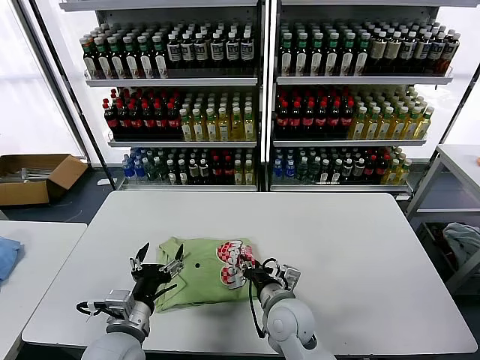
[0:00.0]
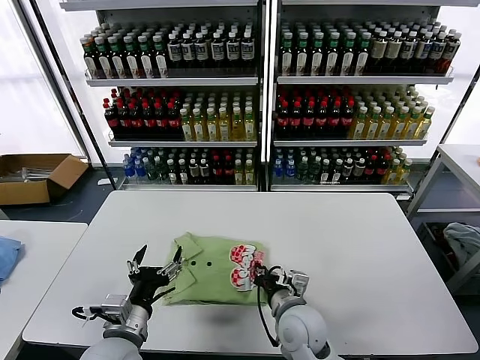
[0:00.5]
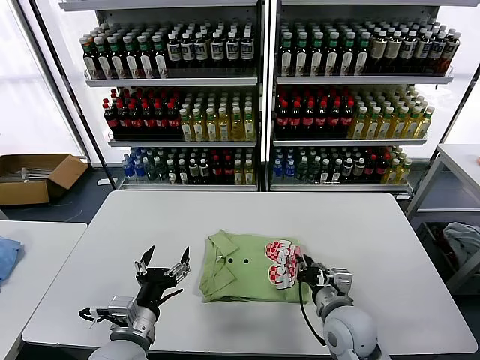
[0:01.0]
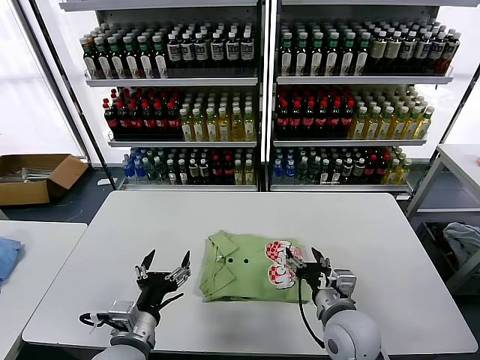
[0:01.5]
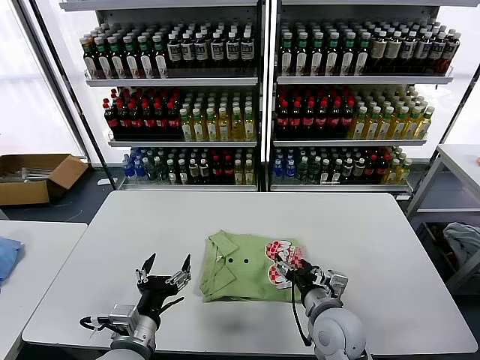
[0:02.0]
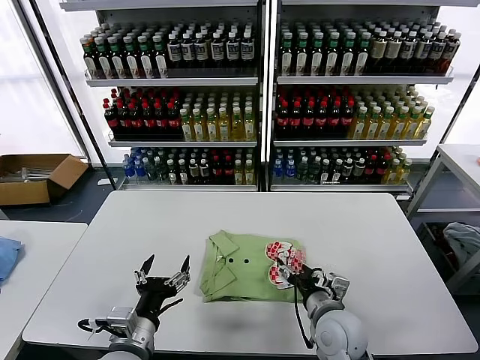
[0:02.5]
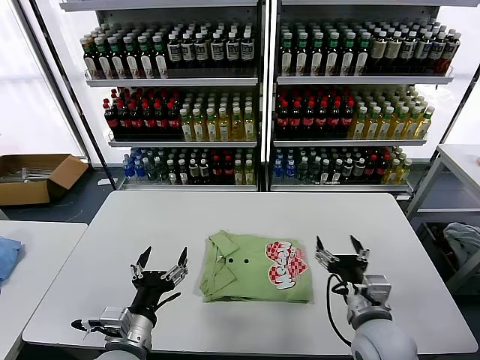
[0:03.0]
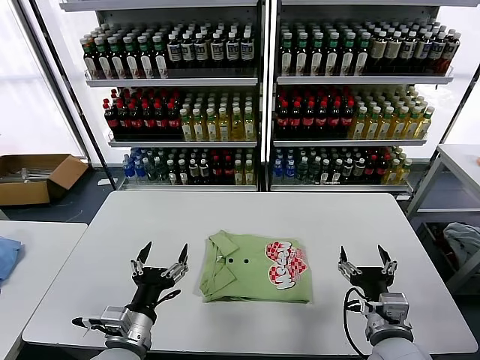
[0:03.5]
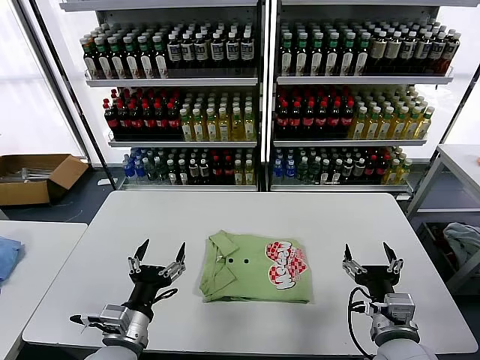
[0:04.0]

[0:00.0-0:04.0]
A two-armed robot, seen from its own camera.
Task of the whole recording: fold and organize the clothes.
Step, 0:00.0 to 0:02.5: Drag the clothes to the center of the table.
0:00.0 to 0:02.0: The right gripper goes approximately 10 cm to the right, and opens its fingers.
0:02.0 to 0:04.0: The right gripper goes approximately 10 cm to the right and backward.

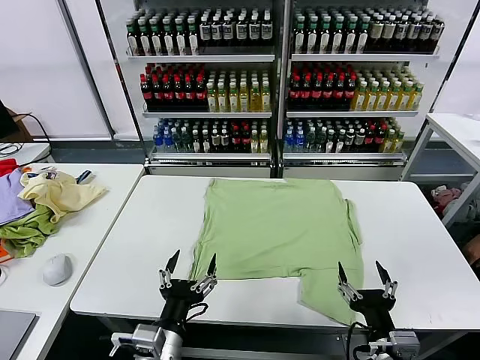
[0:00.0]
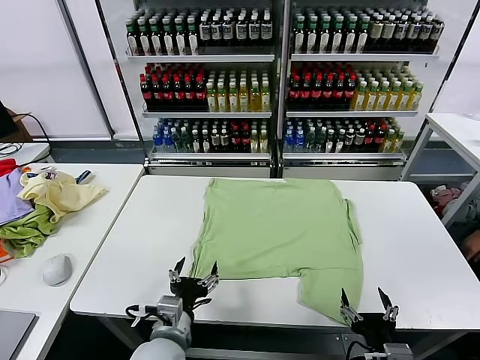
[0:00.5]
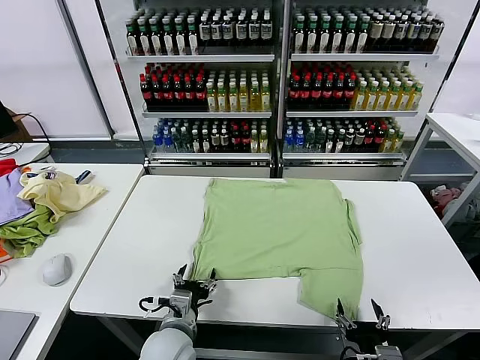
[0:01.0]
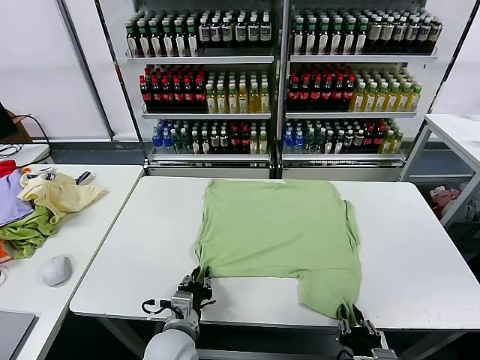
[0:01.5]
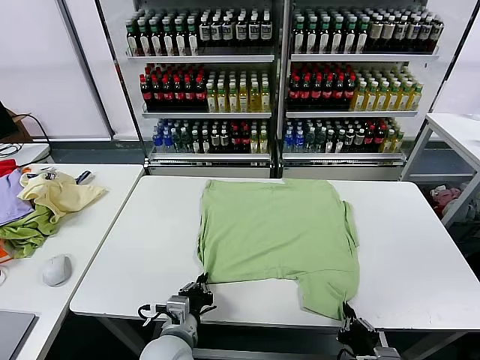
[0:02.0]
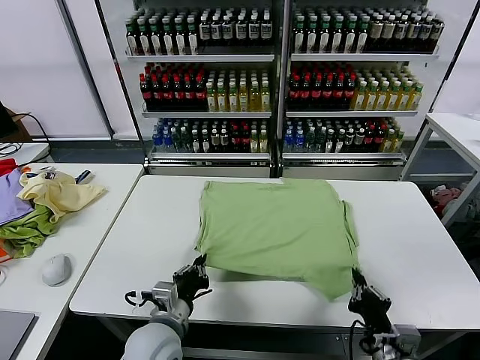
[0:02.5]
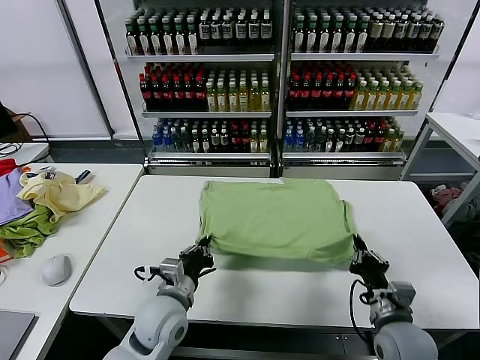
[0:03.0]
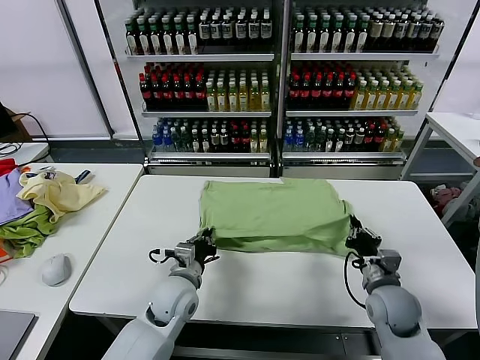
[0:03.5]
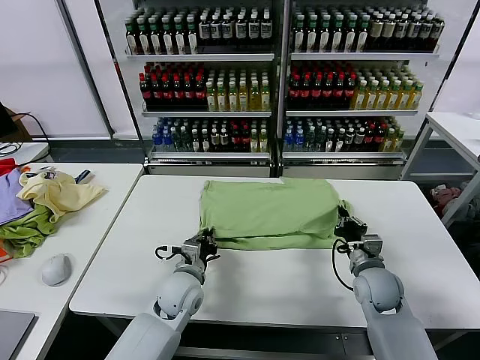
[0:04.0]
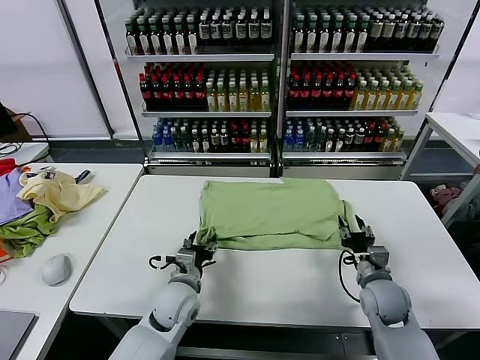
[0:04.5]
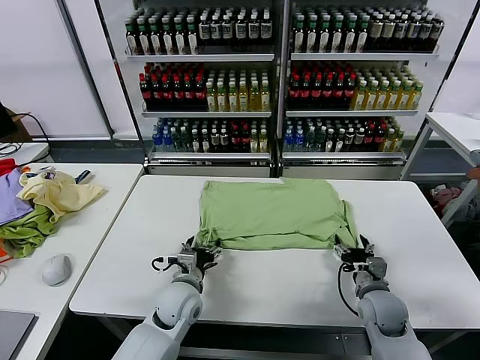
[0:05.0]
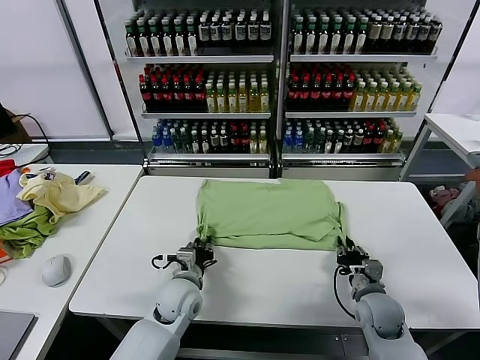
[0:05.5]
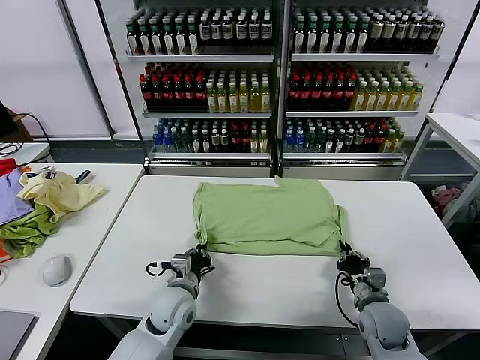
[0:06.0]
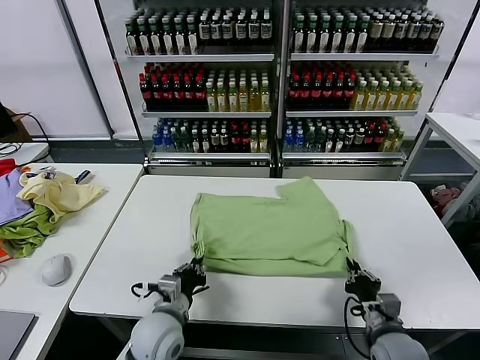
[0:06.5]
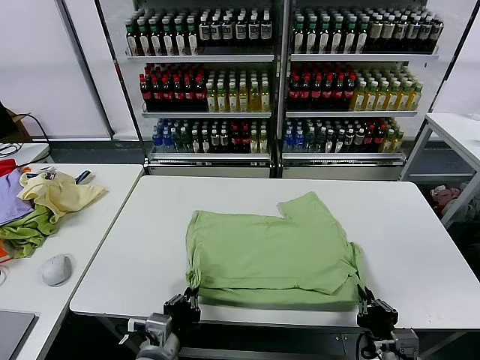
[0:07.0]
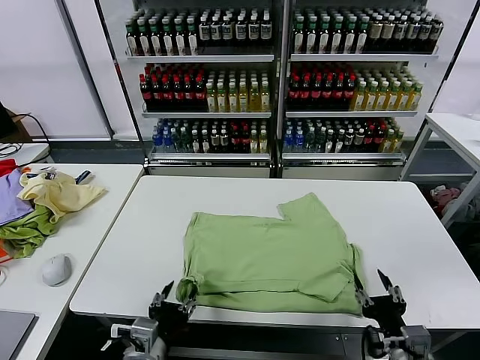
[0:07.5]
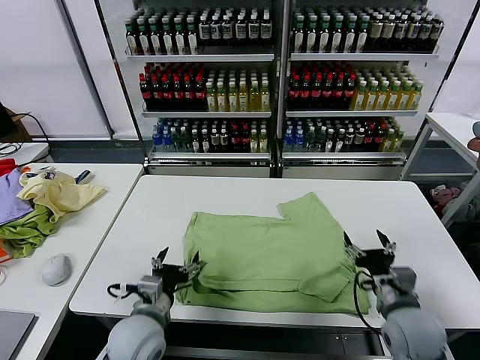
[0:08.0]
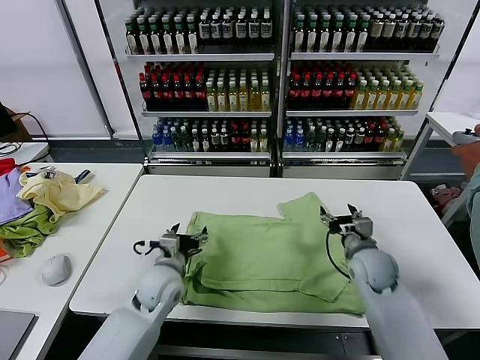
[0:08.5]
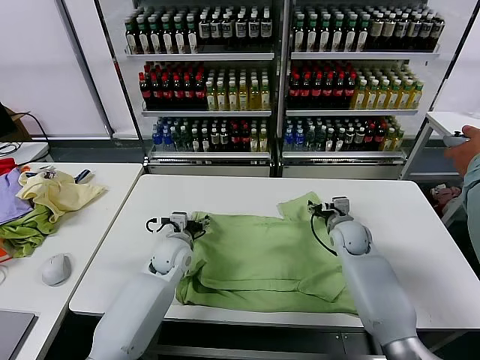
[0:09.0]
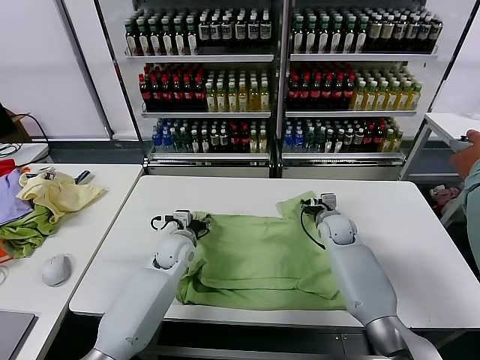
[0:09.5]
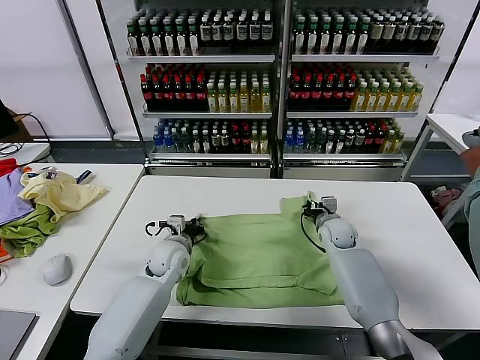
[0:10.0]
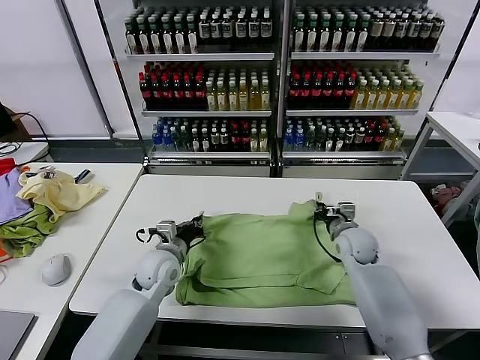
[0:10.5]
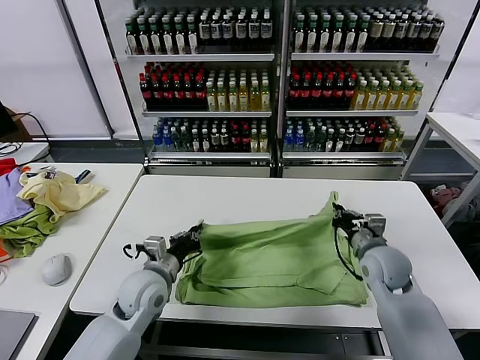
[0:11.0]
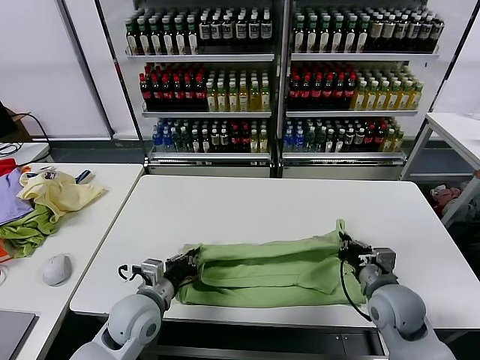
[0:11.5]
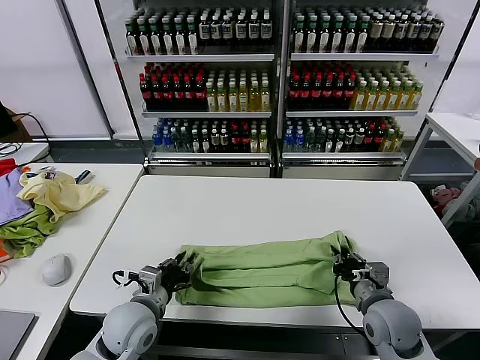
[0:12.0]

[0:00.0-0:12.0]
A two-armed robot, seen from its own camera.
Task of the whole recording: fold and organize the clothes.
Step, 0:00.0 to 0:01.5: use both grippers simultaneously to clamp the lower edge of the clothing fabric.
Step, 0:02.0 to 0:04.0: use both grippers to drag the lower edge of the fabric forward and fold it over the upper edge.
Step, 0:04.5 to 0:07.0: Drag the clothes downward with both gripper.
Step, 0:07.5 to 0:10.0: use both grippers simultaneously to clamp the upper edge of the clothing fabric.
0:02.0 to 0:04.0: The left gripper moves forward, some 15 cm, while the right gripper is displaced forward by approximately 25 cm.
0:04.0 to 0:06.0: The left gripper opens and closes again; the right gripper moves backward, about 5 cm, and opens and closes again.
0:06.0 to 0:08.0: The left gripper heads backward and upward, covering some 10 cm, and opens up, while the right gripper heads upward, covering some 10 cm, reaches about 15 cm backward, then returns, and opens up.
0:08.0 to 0:10.0: The two grippers go roughly 25 cm forward. The left gripper closes, while the right gripper closes its fingers.
0:10.0 to 0:12.0: The two grippers go some 20 cm backward.

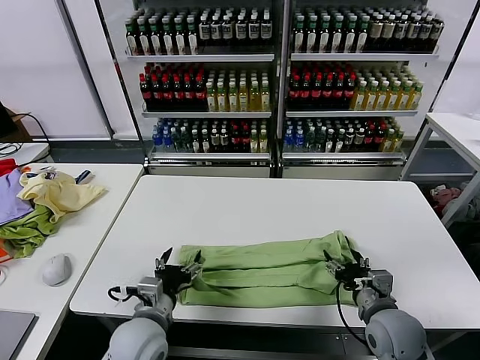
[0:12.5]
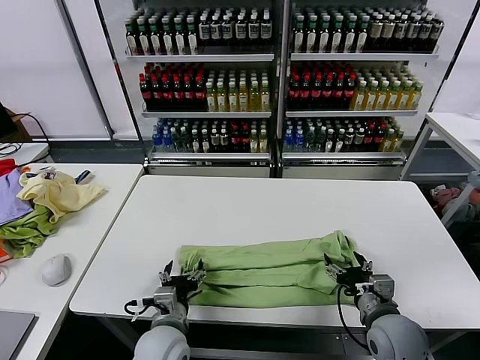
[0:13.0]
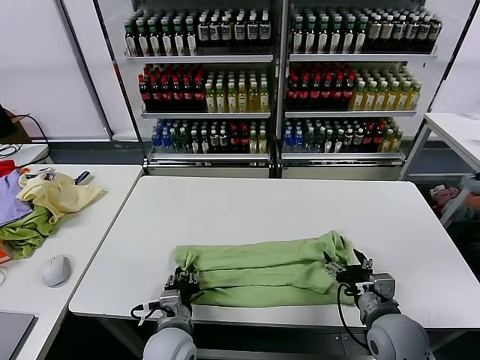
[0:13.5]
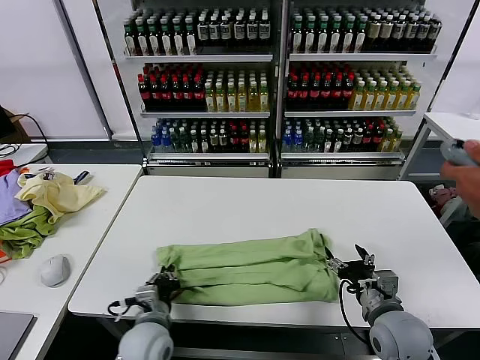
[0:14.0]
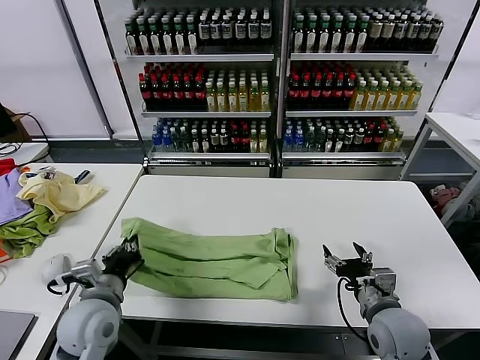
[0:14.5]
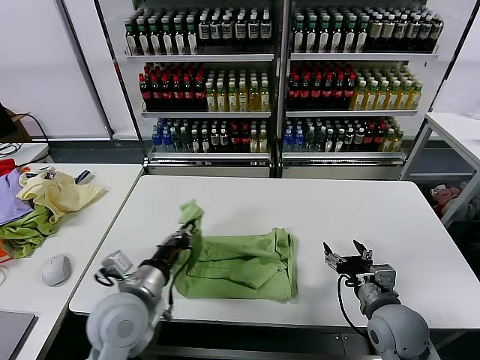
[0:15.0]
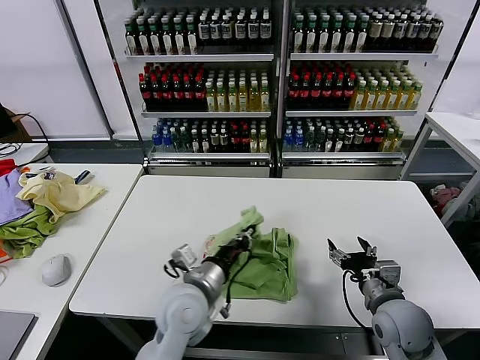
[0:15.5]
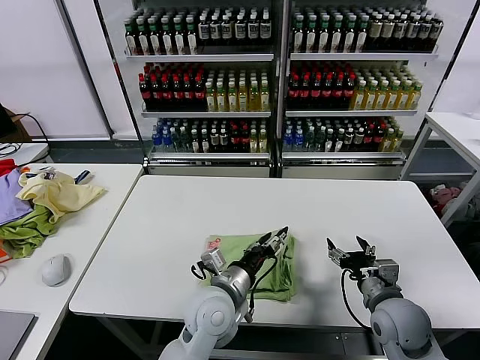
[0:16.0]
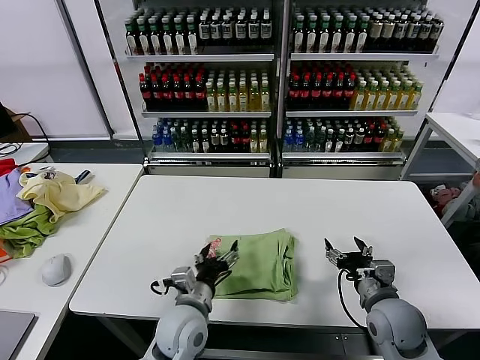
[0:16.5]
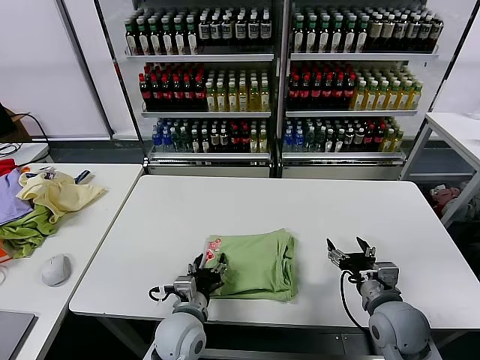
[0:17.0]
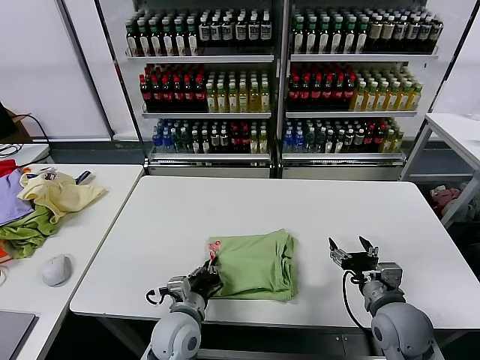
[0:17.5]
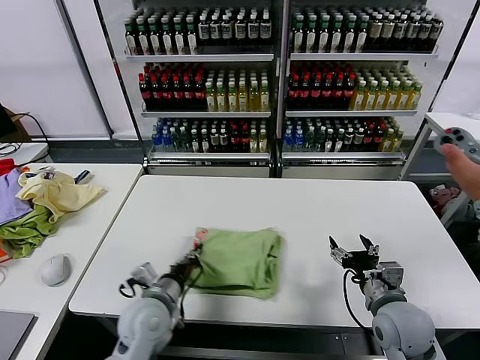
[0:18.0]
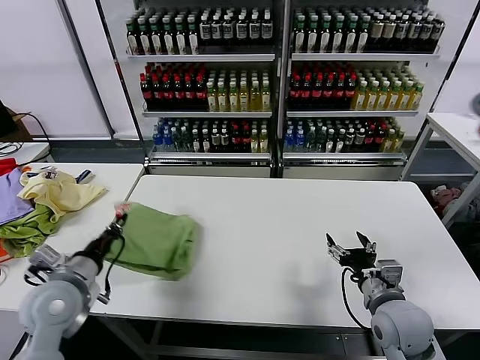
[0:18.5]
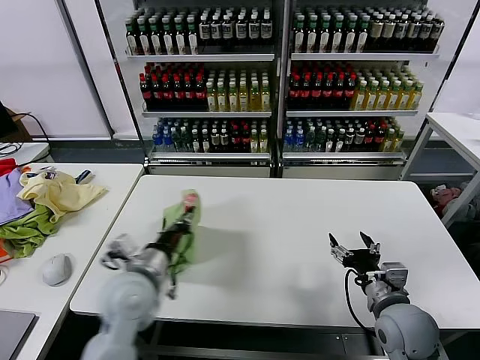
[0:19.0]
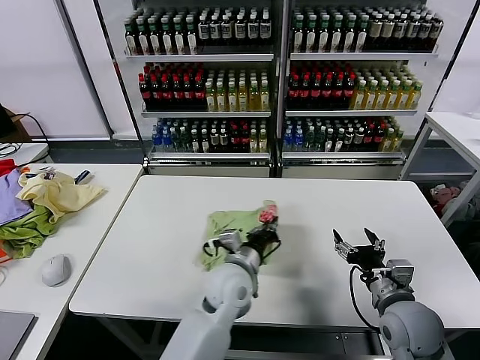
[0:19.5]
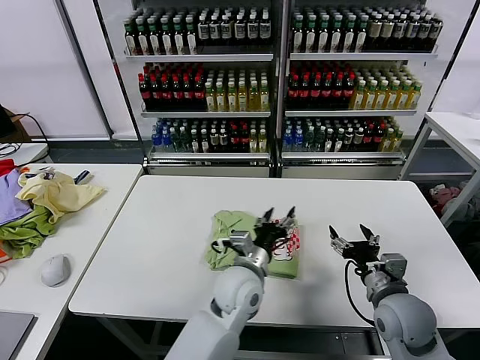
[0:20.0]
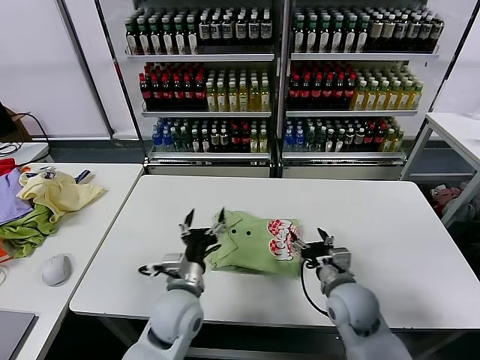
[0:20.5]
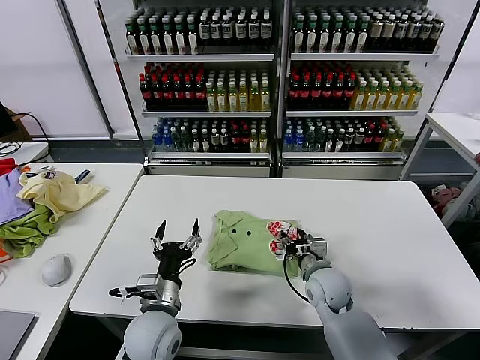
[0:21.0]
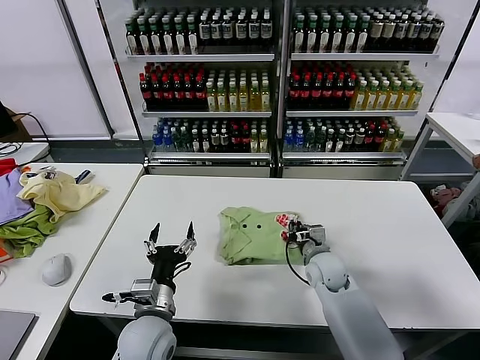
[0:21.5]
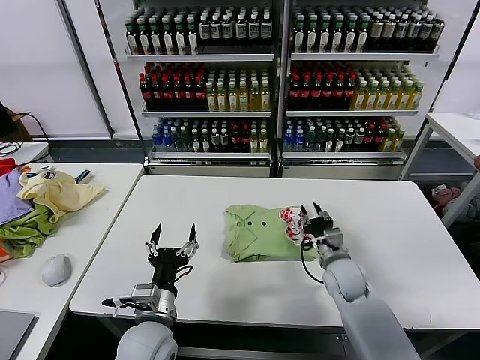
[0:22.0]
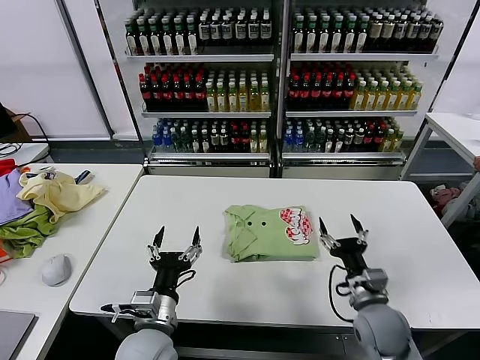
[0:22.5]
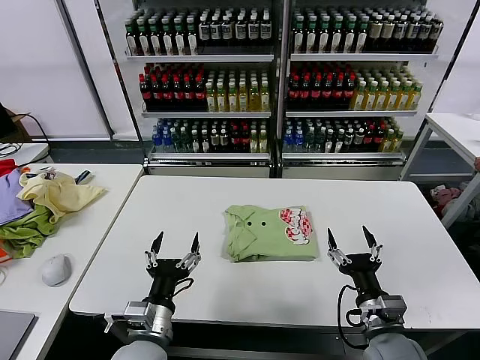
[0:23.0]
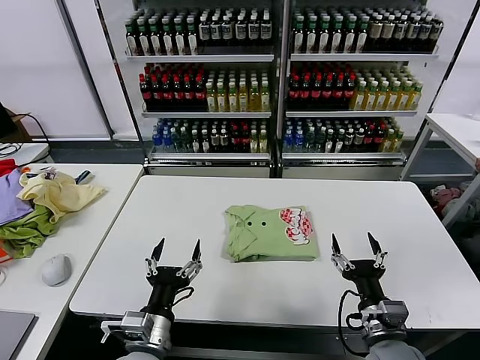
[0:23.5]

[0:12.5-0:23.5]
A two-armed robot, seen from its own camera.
Task of the whole recording: fold and organize the clothes.
Step, 0:12.5 to 0:13.5: use the left gripper to clamp the left edge of the fabric.
Step, 0:14.0 to 0:15.5: use the left gripper to drag the left edge of the fabric to the left and folds it over the right edge.
Step, 0:16.0 to 0:19.5: Flip the folded clothes over with left gripper.
Step, 0:20.0 to 0:21.5: Drag the clothes to the center of the table.
0:12.5 to 0:14.5: The left gripper moves to the left, roughly 10 cm, and closes its fingers.
0:14.5 to 0:16.0: The left gripper heads to the right, covering approximately 20 cm, and opens.
0:16.0 to 0:18.0: The left gripper heads to the left, covering some 10 cm, and closes.
0:18.0 to 0:20.0: The left gripper is displaced to the right by about 20 cm, and opens up.
0:20.0 to 0:21.5: The right gripper moves forward, to the left and downward, about 20 cm, and closes up; the left gripper travels to the left and backward by approximately 20 cm.
0:21.5 to 0:23.5: The right gripper goes some 20 cm backward, and opens its fingers, while the left gripper moves backward, some 5 cm.
